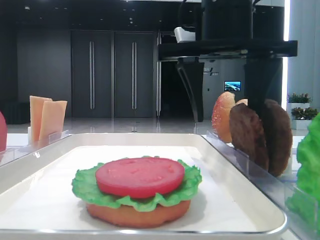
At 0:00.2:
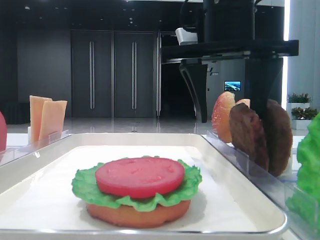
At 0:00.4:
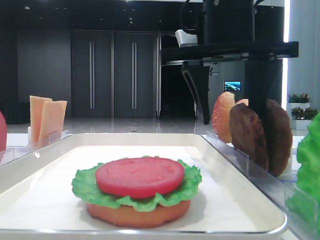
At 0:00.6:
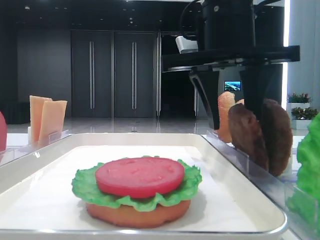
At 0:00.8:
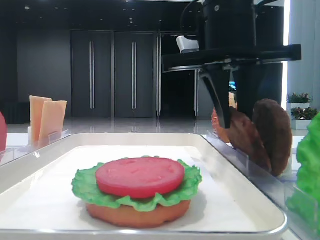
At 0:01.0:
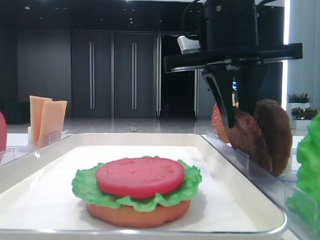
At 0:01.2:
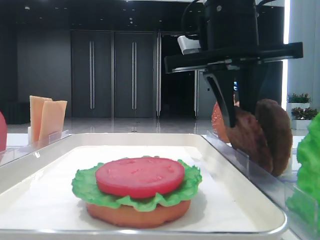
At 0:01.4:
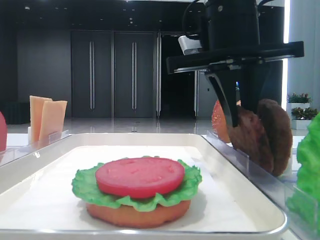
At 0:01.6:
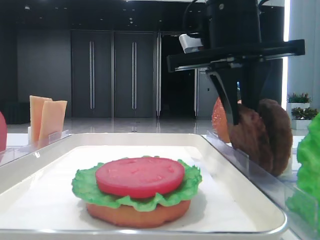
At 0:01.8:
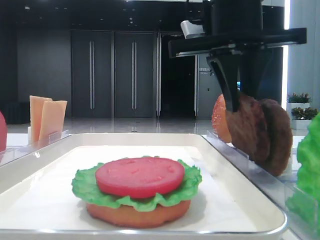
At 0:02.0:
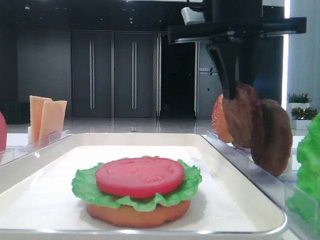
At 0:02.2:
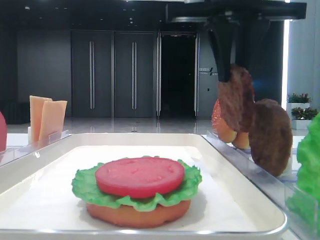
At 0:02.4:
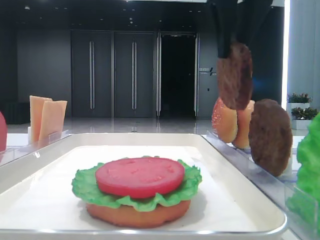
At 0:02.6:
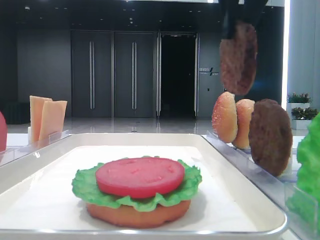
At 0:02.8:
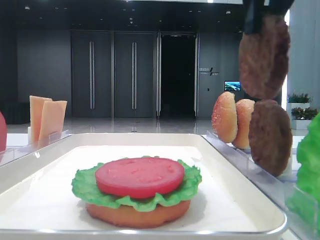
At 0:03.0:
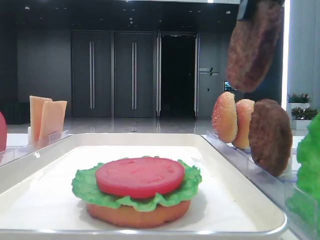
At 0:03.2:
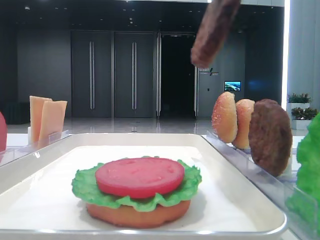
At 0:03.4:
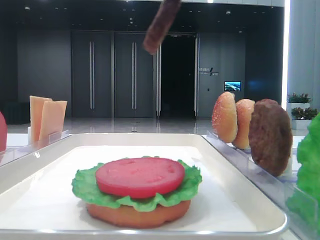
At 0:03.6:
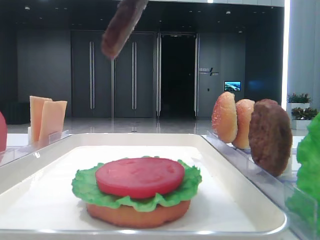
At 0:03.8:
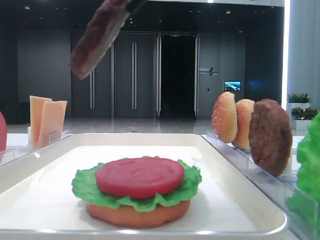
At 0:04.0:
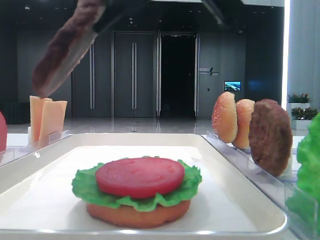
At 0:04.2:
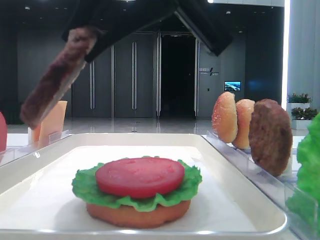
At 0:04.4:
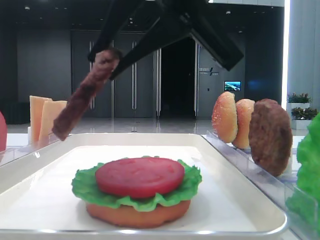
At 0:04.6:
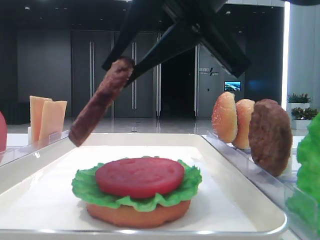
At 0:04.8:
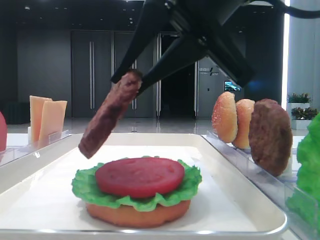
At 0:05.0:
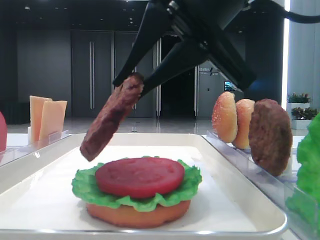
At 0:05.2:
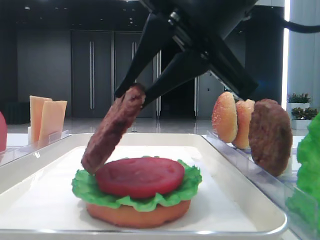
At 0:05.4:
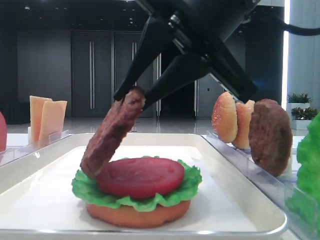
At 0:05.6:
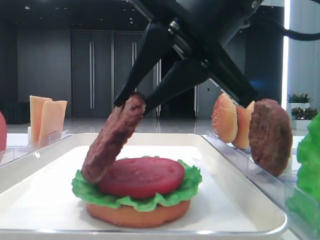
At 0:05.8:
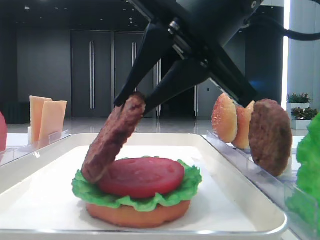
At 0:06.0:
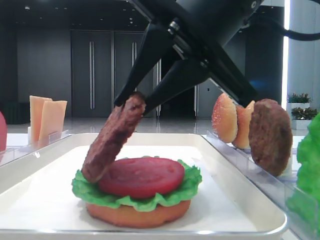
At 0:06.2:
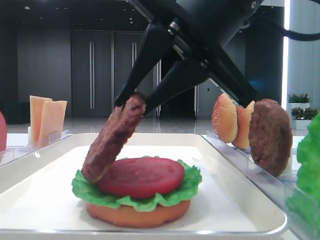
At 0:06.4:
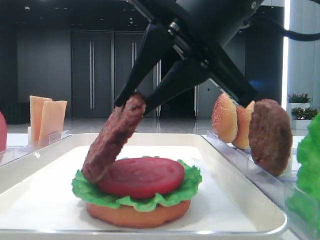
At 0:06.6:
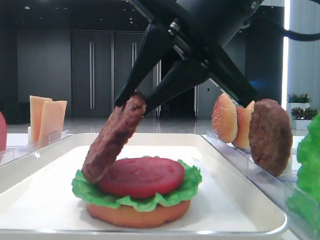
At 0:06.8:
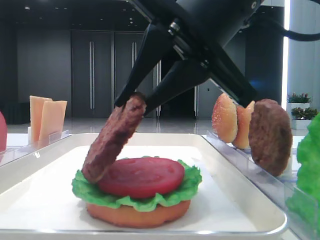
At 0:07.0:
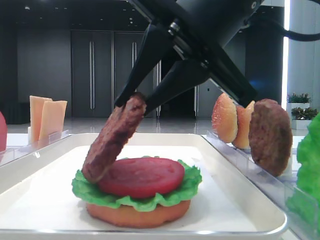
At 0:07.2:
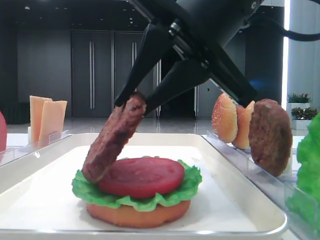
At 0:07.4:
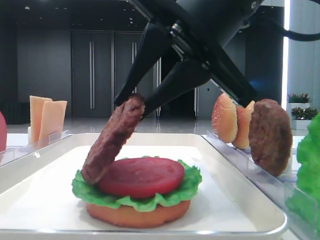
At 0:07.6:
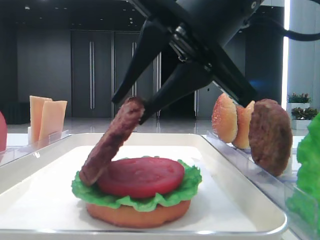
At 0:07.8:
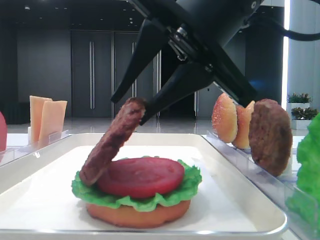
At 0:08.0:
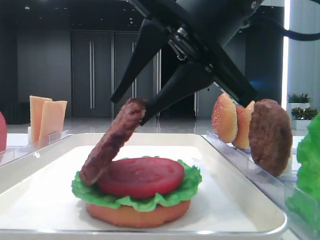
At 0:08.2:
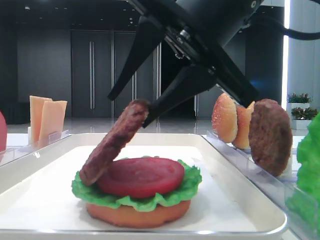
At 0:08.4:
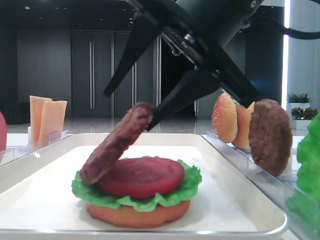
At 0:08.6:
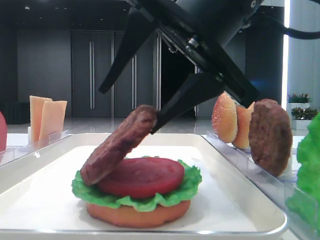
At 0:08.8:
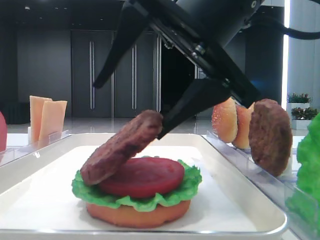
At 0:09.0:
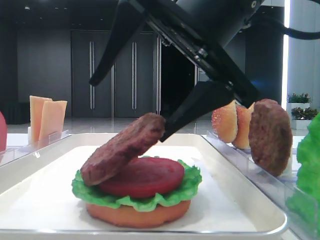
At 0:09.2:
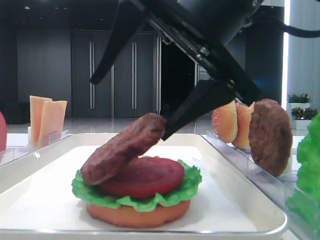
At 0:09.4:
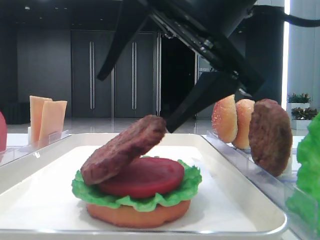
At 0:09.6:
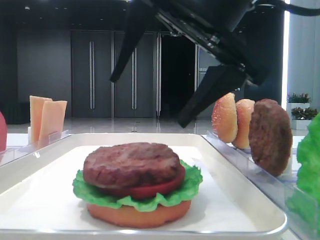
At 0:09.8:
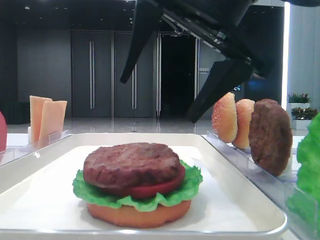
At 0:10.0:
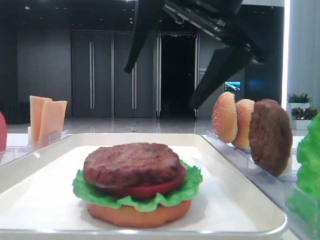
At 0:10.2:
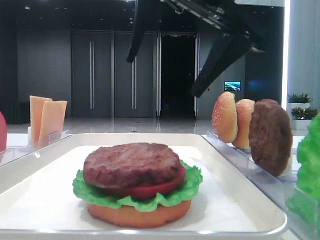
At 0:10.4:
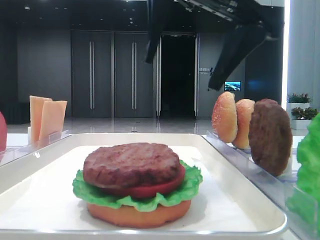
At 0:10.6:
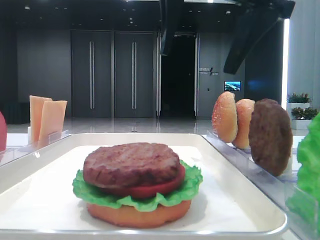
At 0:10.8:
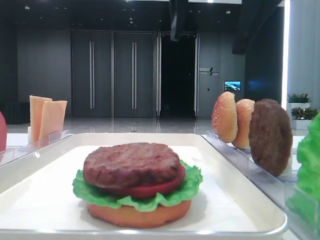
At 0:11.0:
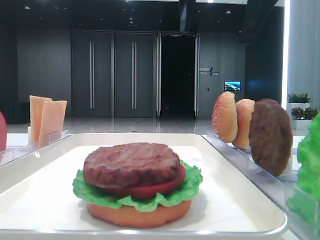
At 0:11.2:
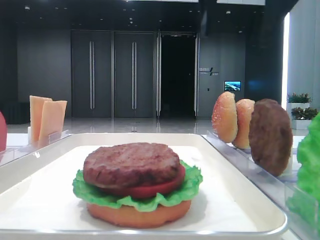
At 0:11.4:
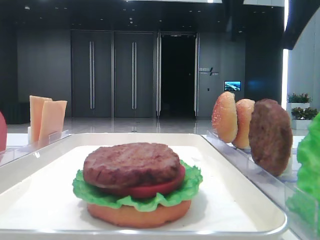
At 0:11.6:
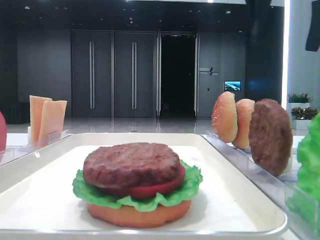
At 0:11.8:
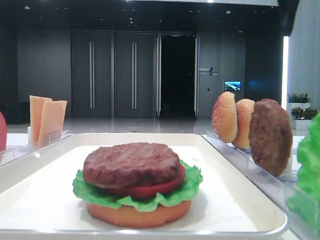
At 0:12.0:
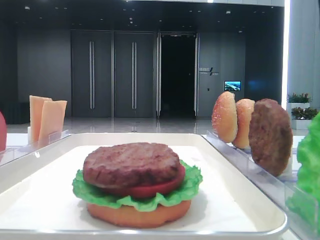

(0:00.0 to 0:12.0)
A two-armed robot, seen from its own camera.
Step, 0:01.4 - 0:09.4: Place the patty on the tomato slice with the right hand.
0:00.0 - 0:01.6: The right gripper closes its fingers.
0:01.6 - 0:03.0: The right gripper shifts about 15 cm upward and backward.
0:03.0 - 0:04.4: The right gripper heads to the left and downward, covering roughly 10 cm.
0:04.4 - 0:06.0: The grippers make only small movements.
0:06.0 - 0:07.6: Both grippers stay about where they are.
0:07.6 - 0:09.0: The right gripper opens its fingers.
0:09.0 - 0:10.4: The right gripper moves upward, some 5 cm.
0:10.4 - 0:12.0: The right gripper travels to the right by some 20 cm.

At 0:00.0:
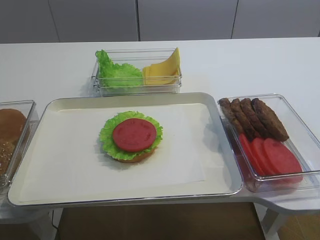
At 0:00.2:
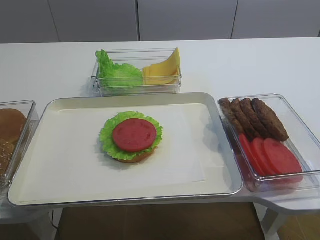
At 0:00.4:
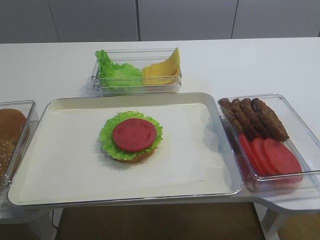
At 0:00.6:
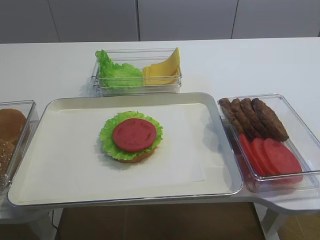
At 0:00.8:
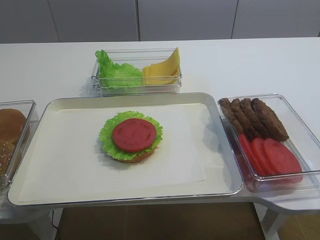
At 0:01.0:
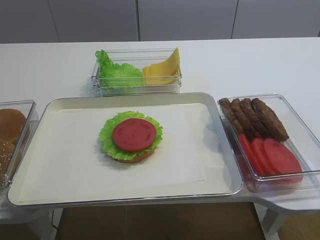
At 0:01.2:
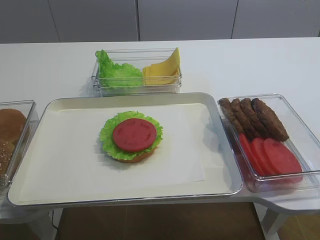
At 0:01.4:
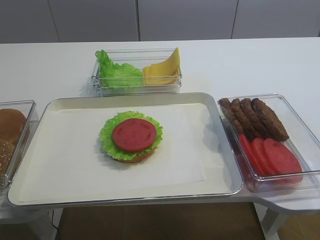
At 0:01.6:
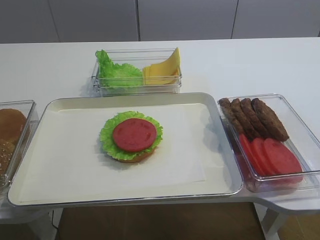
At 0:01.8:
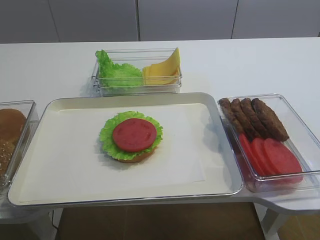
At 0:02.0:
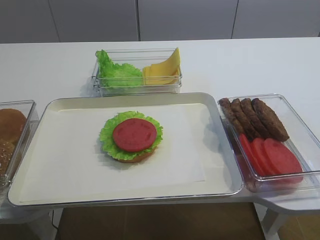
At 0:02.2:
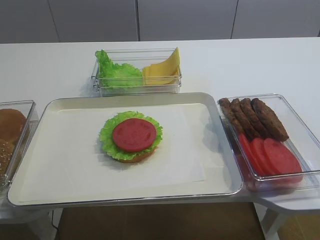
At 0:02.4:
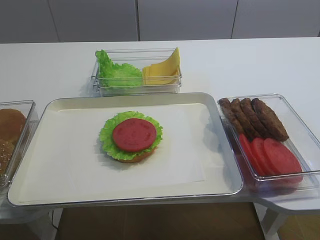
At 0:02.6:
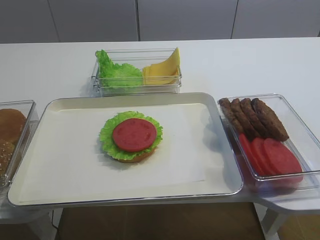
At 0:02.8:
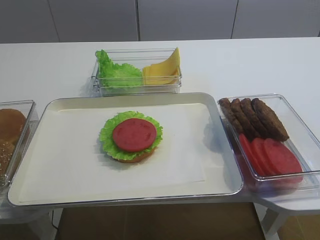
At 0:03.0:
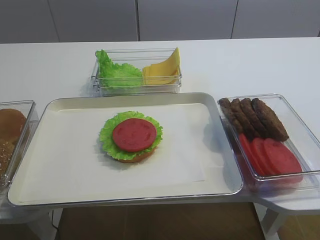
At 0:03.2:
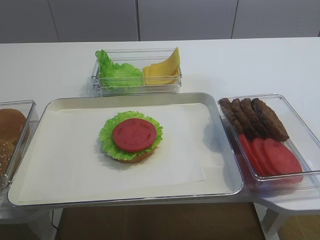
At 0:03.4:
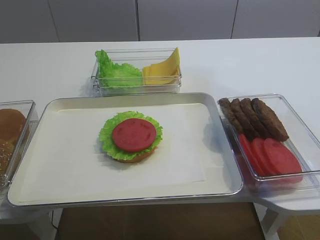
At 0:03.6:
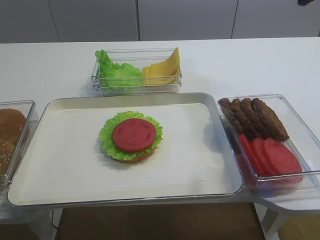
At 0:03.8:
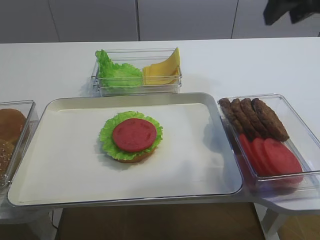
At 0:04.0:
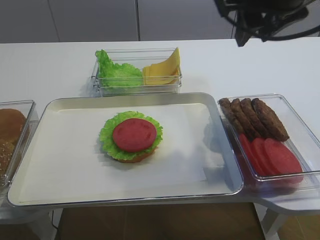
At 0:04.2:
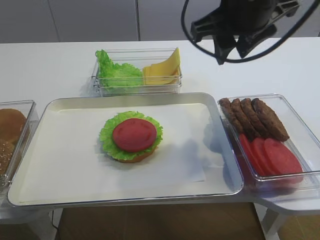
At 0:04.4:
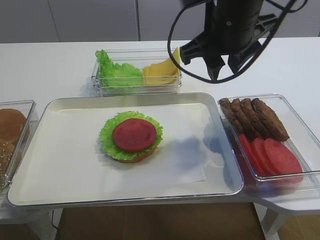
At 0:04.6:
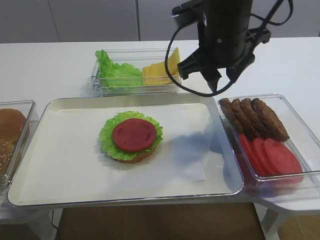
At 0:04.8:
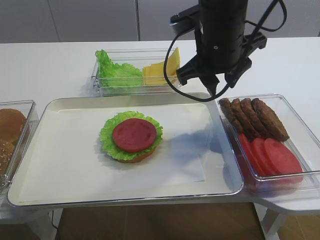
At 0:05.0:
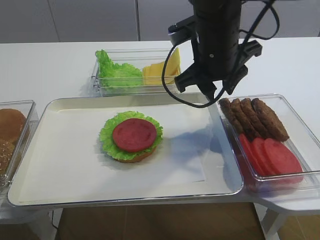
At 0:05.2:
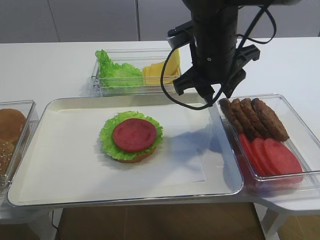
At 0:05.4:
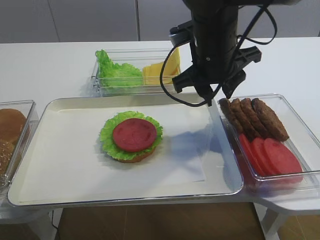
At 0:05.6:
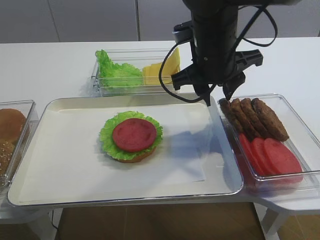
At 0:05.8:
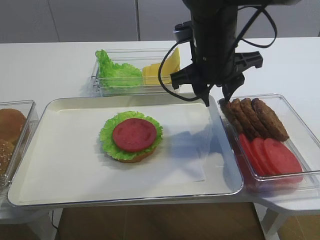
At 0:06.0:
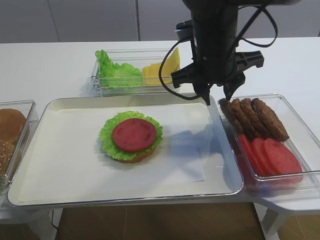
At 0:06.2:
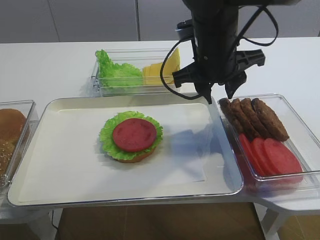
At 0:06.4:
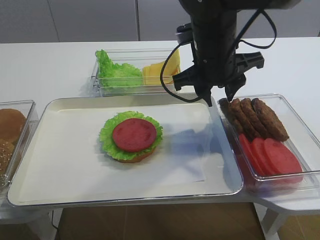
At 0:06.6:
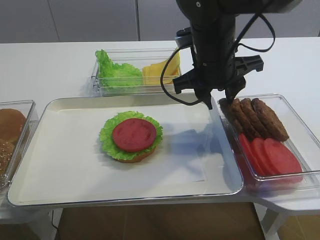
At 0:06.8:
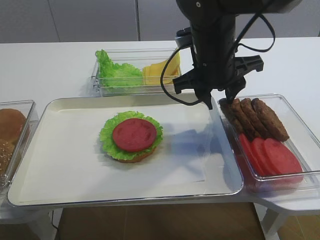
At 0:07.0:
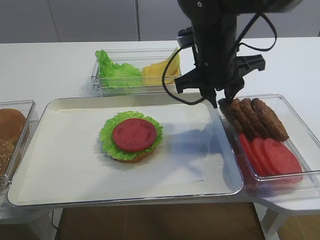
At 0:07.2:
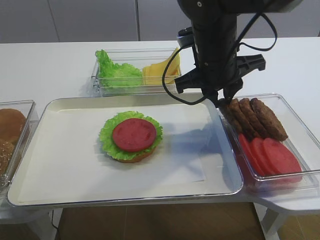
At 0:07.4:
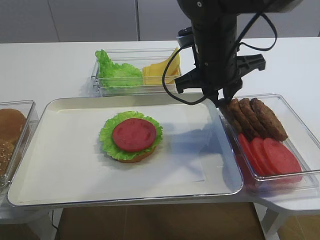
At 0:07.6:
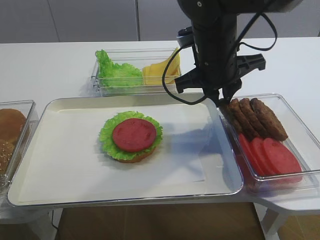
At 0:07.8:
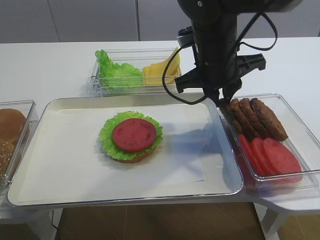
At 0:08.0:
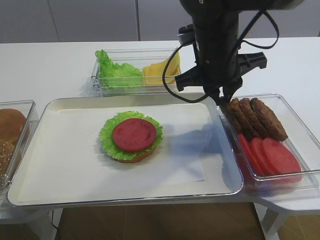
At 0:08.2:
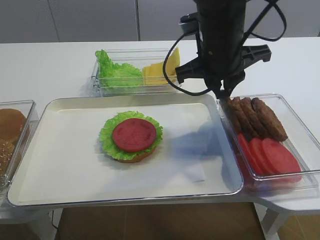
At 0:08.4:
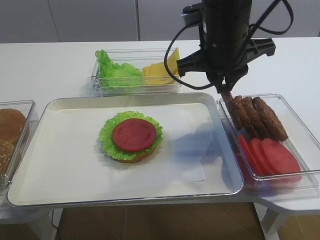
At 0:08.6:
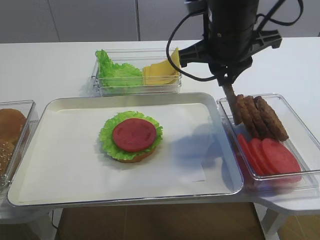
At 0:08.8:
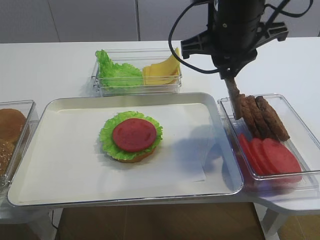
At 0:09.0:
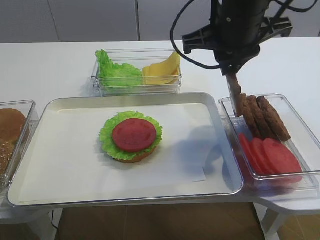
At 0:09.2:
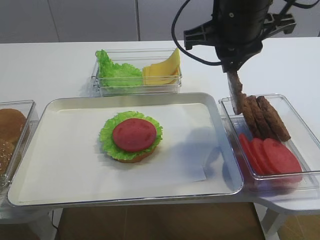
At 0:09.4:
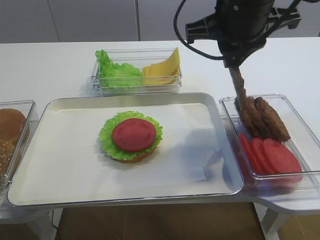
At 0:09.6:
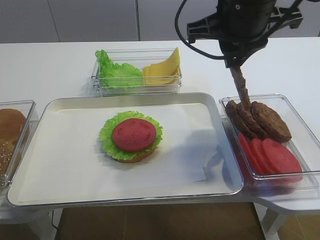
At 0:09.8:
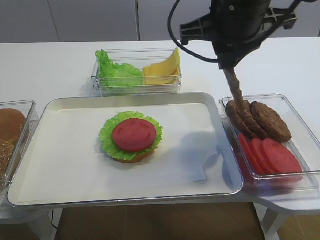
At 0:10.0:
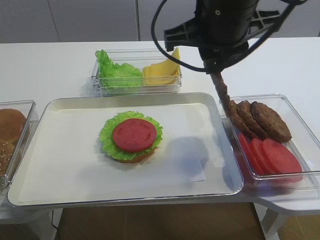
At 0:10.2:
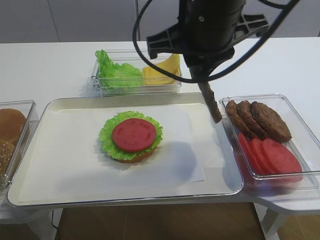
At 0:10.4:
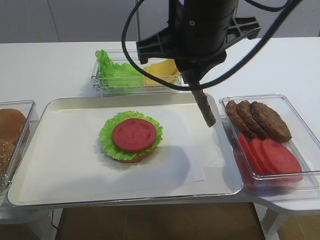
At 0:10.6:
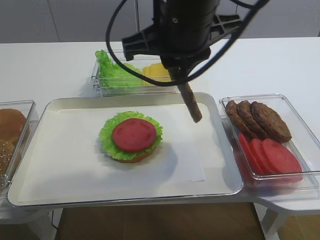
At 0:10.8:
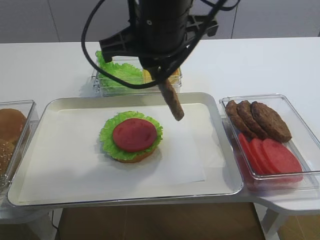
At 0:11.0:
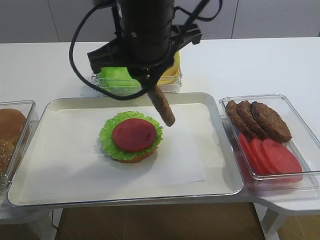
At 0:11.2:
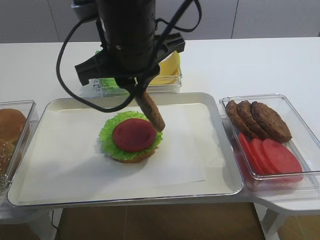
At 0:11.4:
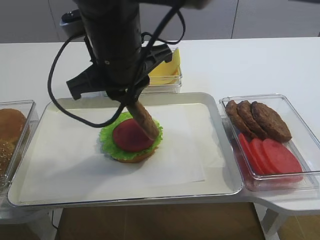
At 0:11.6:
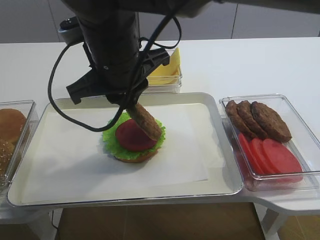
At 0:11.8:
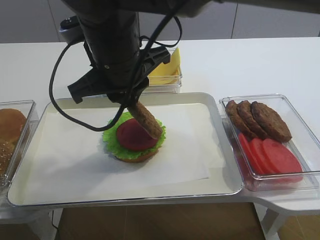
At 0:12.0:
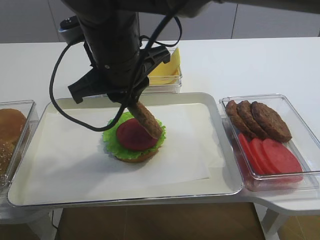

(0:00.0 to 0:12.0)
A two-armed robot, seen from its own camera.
Step, 0:00.0 - 0:08.6: Pick up the cutlet with the right gripper.
0:01.6 - 0:03.0: The right gripper goes approximately 20 cm upward and forward.
0:03.0 - 0:04.4: The right gripper goes about 30 cm forward, to the left and downward.
0:04.4 - 0:06.0: The right gripper goes roughly 5 cm downward.
0:06.0 - 0:07.6: The right gripper closes its fingers.
0:07.6 - 0:09.0: The right gripper travels upward by approximately 5 cm.
0:09.0 - 0:10.4: The right gripper is displaced backward and to the left by roughly 10 cm.
0:10.4 - 0:12.0: The right gripper shifts about 10 cm to the left and downward.
